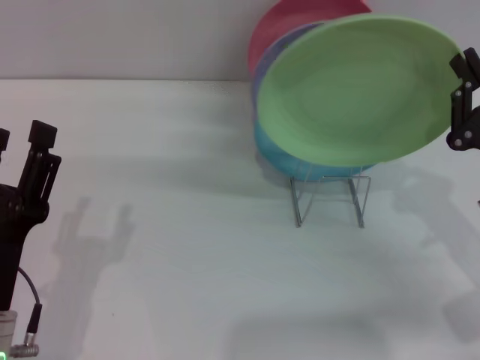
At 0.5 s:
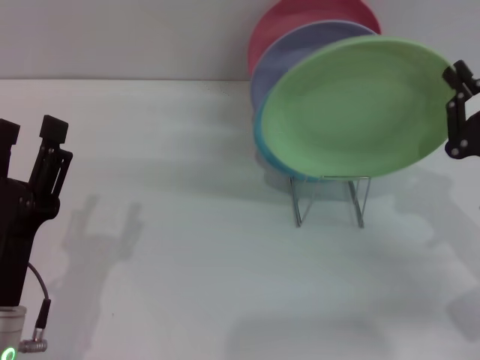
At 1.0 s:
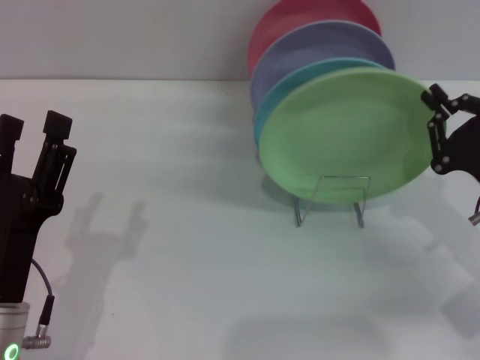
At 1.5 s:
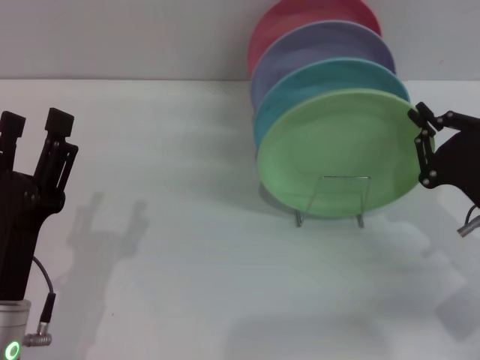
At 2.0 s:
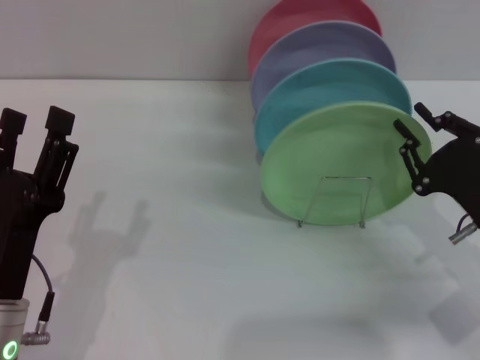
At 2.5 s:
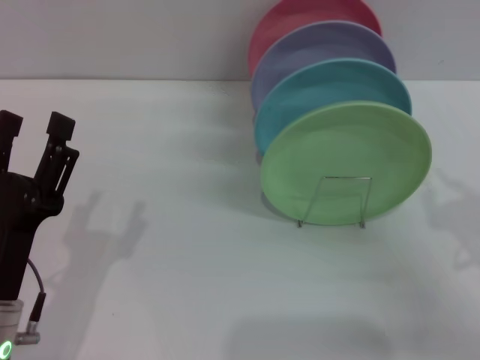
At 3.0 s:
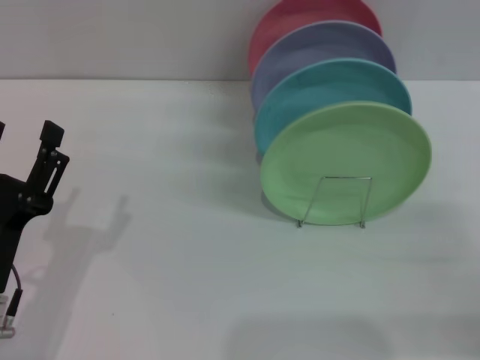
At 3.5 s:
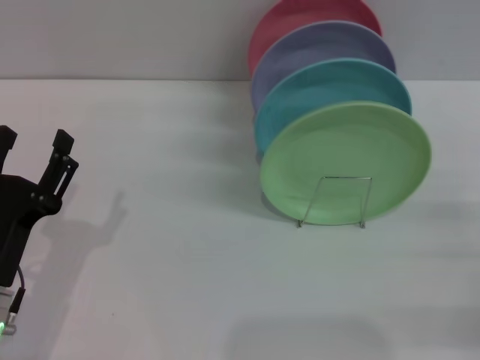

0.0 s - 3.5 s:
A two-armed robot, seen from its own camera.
Task of the whole recording: Grip the plate with one hand, pass it to the other, then set it on the shelf.
Step, 0.0 s - 2.0 s: Place the plate on the shelf with the right gripper.
0.0 s - 2.0 s: The grippers stay close to where they were, moving slightly.
2.0 s - 3.5 s: The right gripper heads to the right, covering about 10 cm, and opens.
